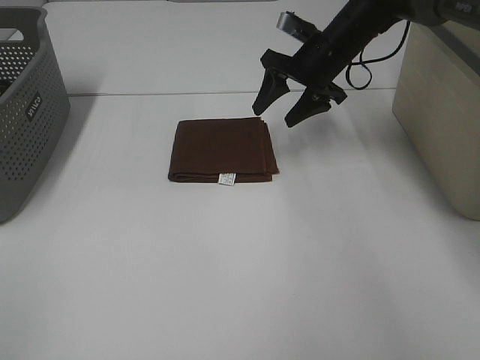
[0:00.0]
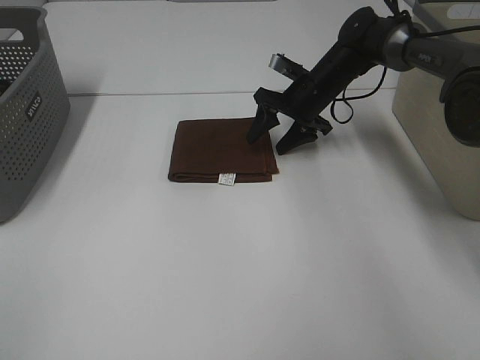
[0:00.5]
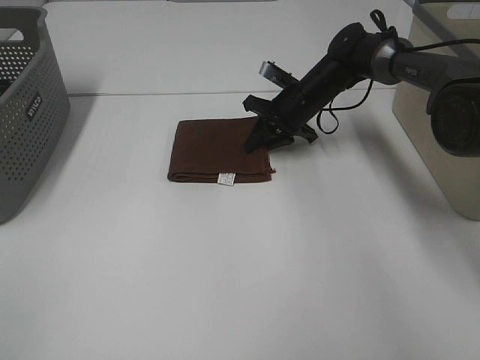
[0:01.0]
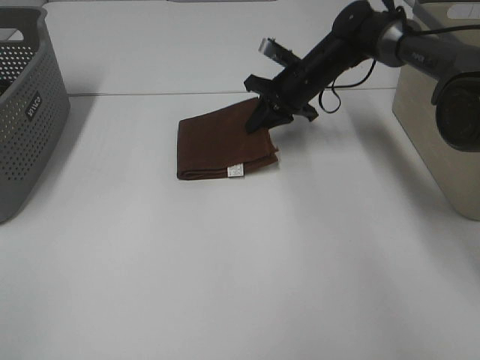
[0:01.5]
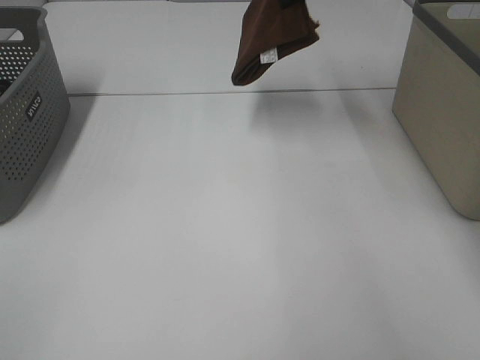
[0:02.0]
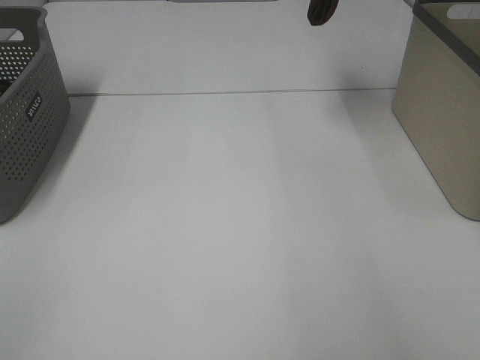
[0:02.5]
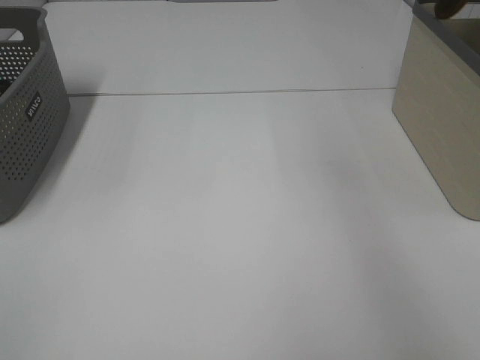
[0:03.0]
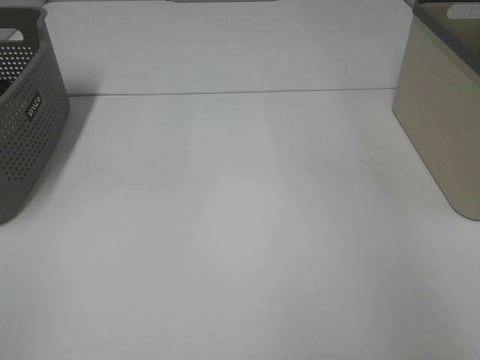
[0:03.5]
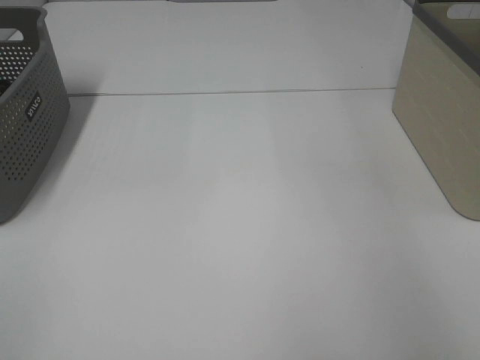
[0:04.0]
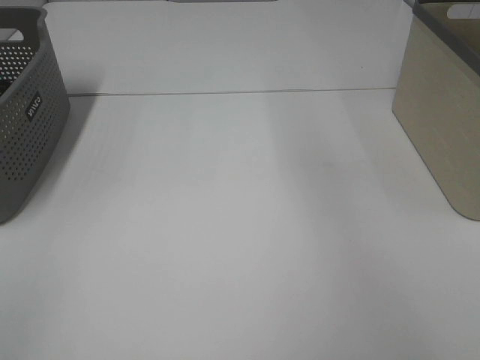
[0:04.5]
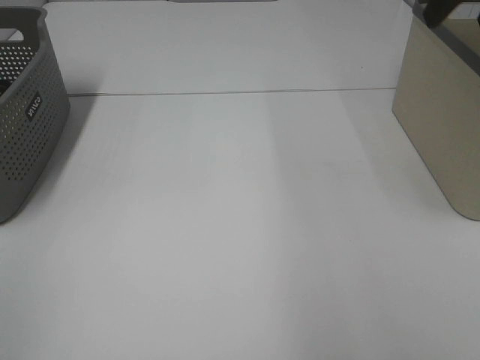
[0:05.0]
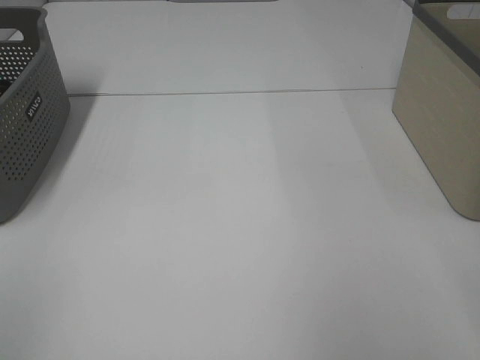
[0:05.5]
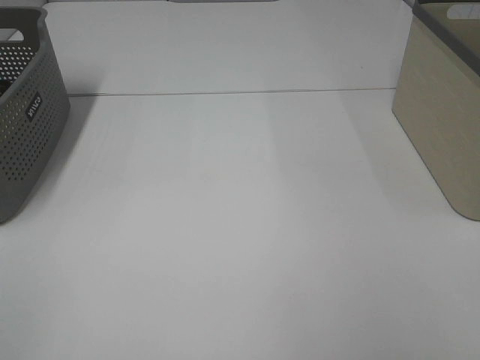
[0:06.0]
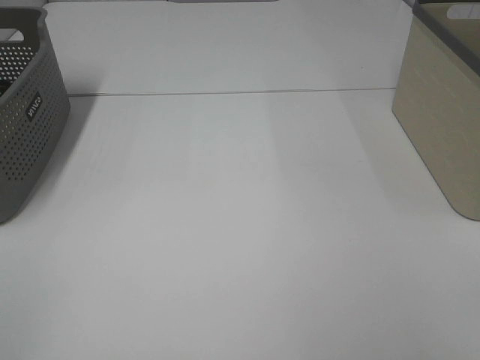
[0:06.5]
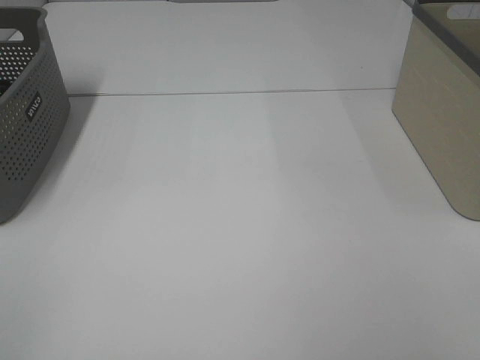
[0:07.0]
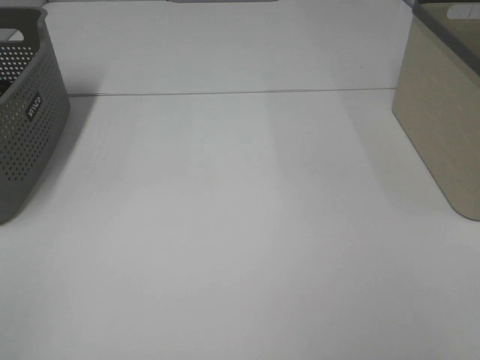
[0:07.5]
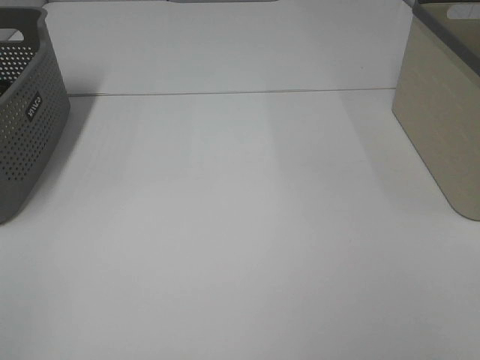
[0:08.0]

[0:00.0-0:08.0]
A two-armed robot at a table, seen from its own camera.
Step, 0:01.5 to 0:04.0: Right hand: place the brown towel in right basket.
0:00.0 to 0:02.0: The right gripper shifts approximately 15 cm upward, and closes up.
0:02.0 to 0:04.0: The right gripper shifts roughly 25 cm to the right, and opens its fingers.
